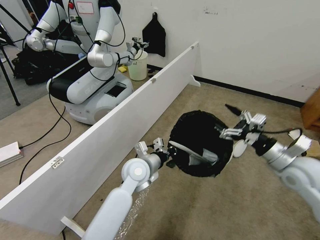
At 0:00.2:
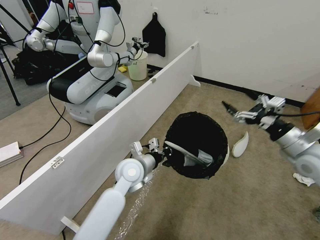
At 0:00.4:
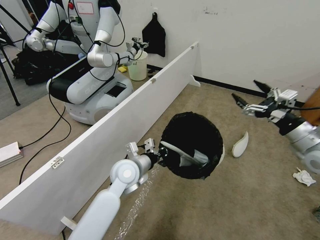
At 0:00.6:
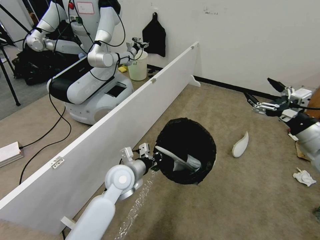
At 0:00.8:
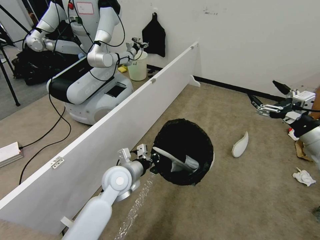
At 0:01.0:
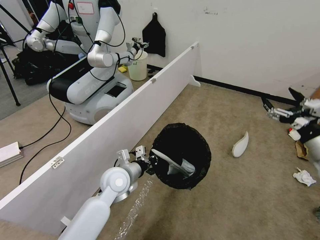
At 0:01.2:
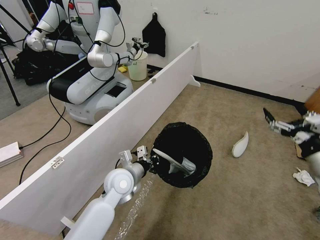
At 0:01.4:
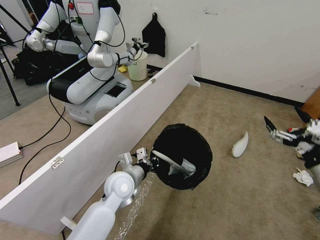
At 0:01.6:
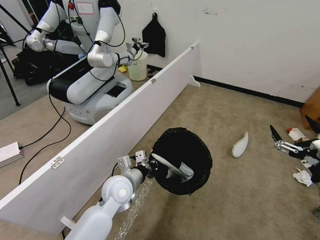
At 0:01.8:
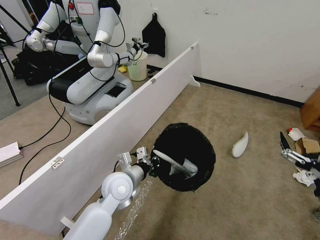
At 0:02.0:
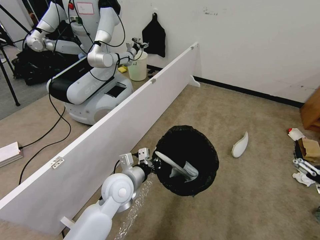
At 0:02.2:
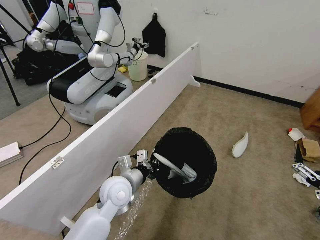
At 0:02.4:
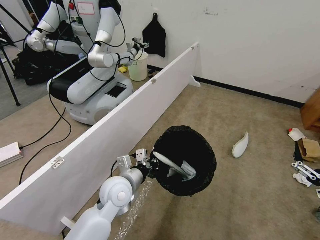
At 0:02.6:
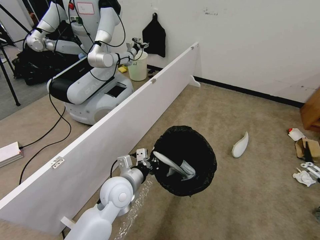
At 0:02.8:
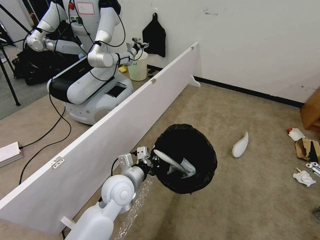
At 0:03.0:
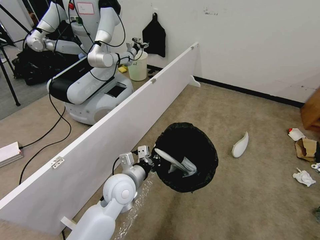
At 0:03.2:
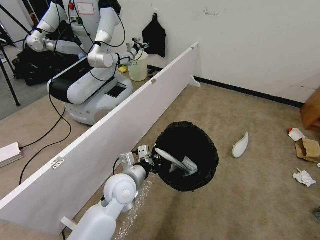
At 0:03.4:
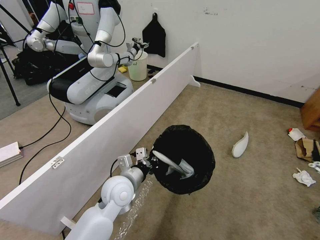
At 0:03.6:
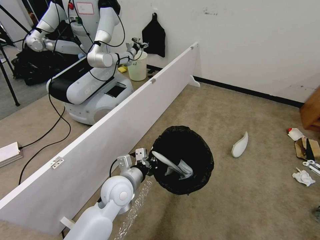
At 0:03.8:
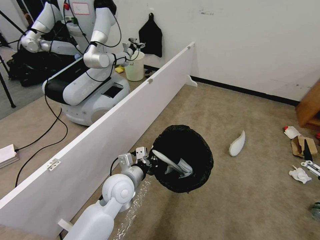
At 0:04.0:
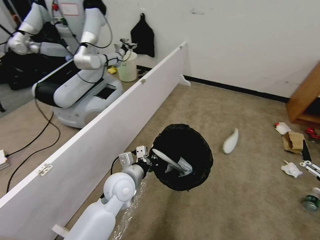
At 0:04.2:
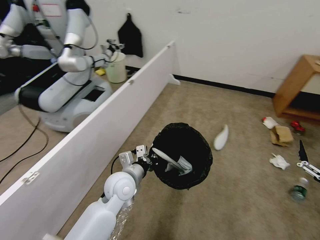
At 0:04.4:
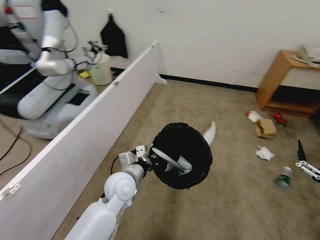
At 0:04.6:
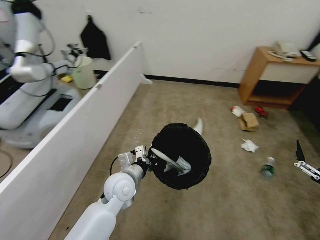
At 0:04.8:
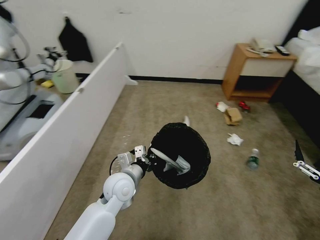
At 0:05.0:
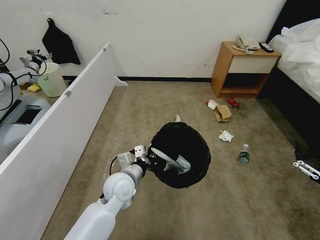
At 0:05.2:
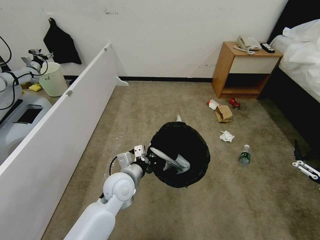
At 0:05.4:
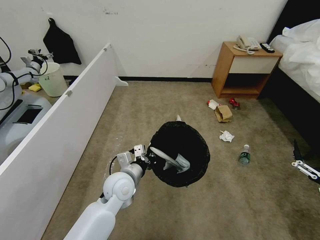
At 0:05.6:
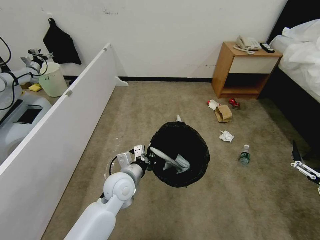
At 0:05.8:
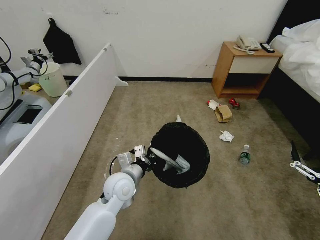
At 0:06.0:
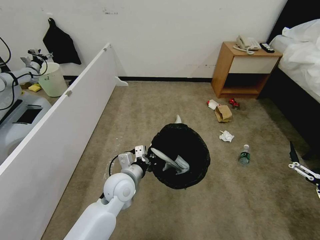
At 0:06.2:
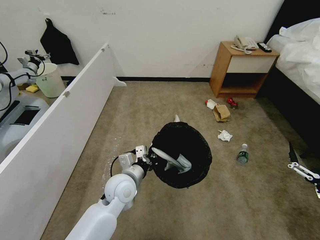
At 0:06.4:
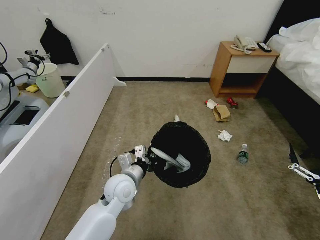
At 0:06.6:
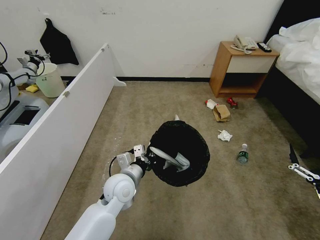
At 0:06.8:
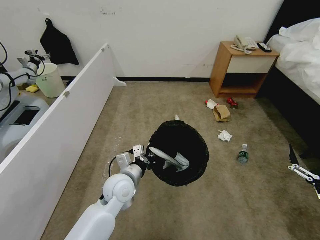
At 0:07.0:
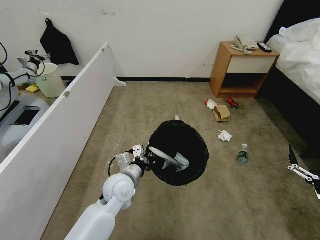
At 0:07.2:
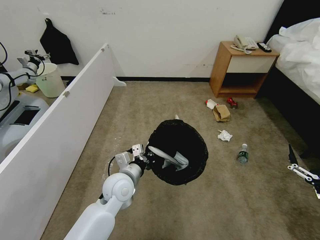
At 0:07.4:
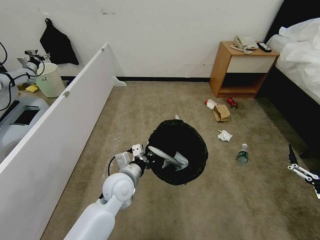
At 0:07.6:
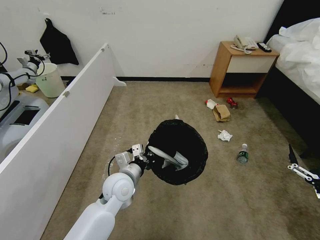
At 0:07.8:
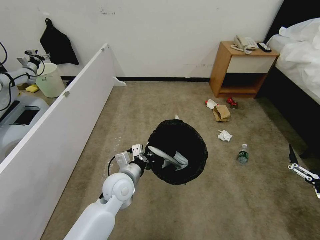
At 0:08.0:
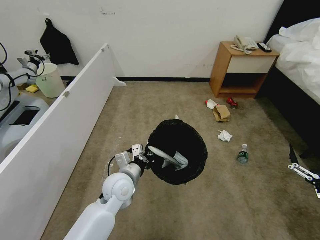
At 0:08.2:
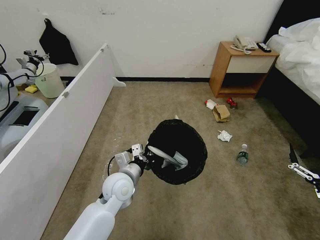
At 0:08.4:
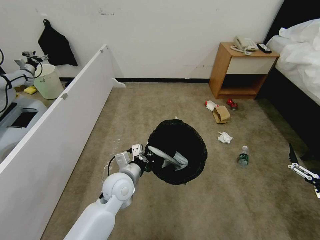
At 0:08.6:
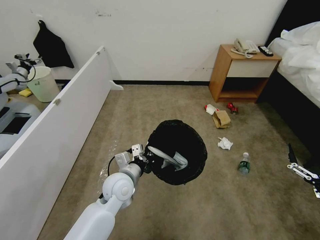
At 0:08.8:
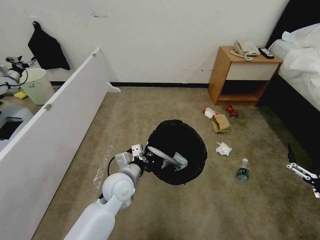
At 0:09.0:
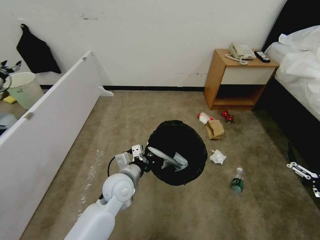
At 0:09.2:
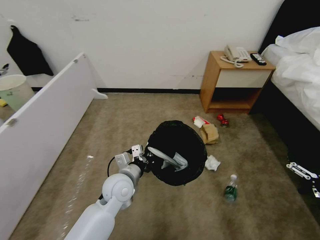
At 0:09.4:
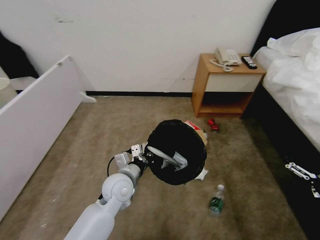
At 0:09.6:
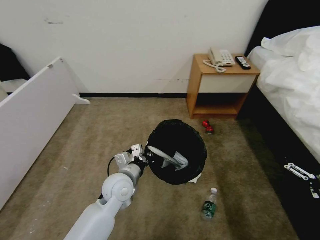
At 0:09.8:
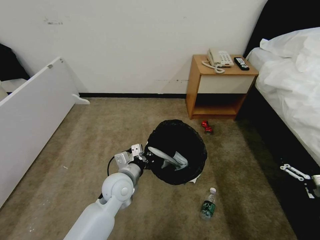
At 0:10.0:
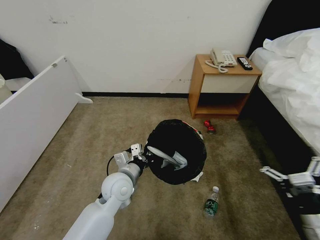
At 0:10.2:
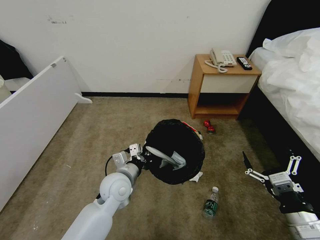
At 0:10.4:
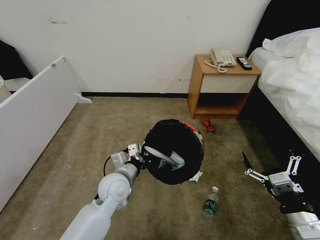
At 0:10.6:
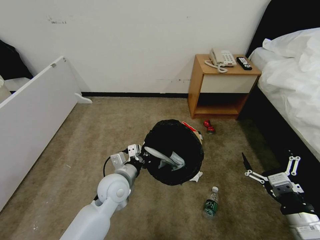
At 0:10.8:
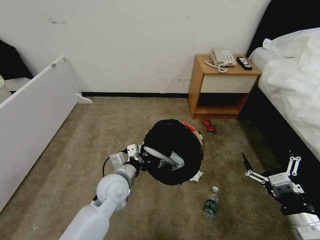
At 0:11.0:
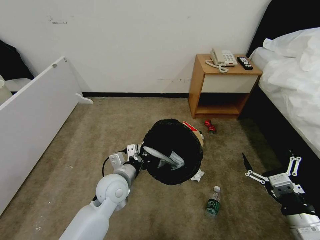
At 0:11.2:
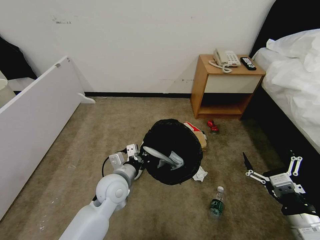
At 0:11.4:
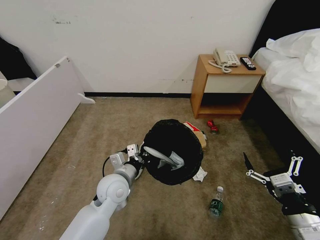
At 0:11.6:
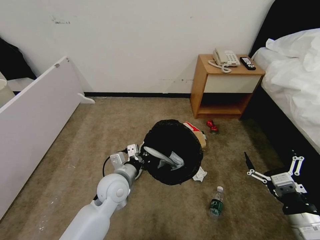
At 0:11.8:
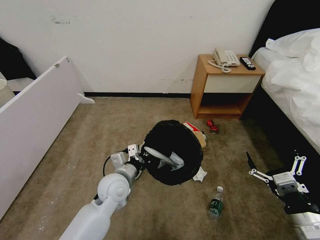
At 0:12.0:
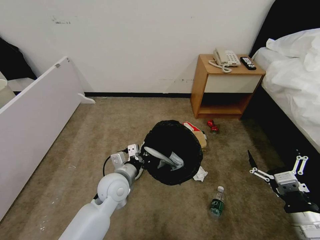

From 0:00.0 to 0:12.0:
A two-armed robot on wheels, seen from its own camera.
Task of the whole recording: Pick up the trash bin, then pick up the garbage from the floor and place it into the trash bin.
From 0:00.0 to 0:01.6: The left gripper shifts approximately 5 cm backward and to the left. Meanwhile the right gripper heads backward and to the right, covering some 15 cm.
From 0:01.6 to 0:03.0: The right gripper travels backward by about 10 cm.
From 0:06.0 to 0:07.6: Both grippers stay about where they are.
From 0:09.0 to 0:10.4: The right gripper moves approximately 5 cm.
From 0:10.4 to 0:12.0: The two grippers keep their place.

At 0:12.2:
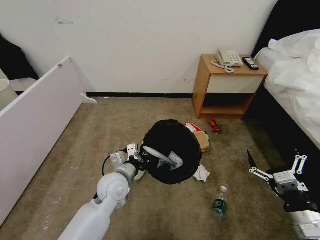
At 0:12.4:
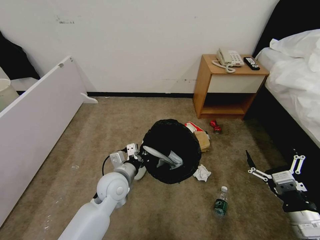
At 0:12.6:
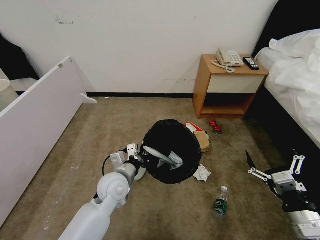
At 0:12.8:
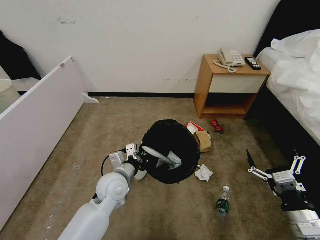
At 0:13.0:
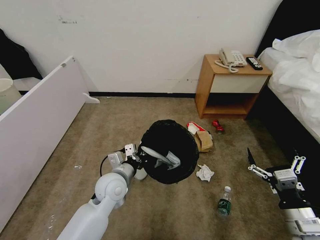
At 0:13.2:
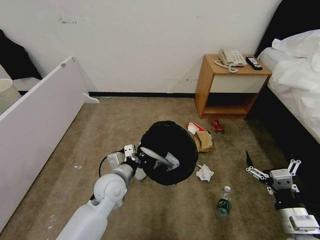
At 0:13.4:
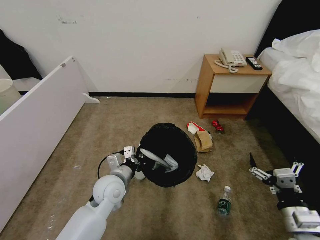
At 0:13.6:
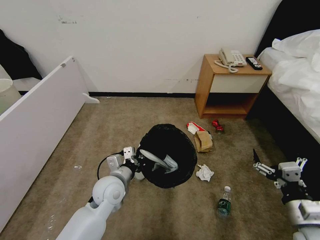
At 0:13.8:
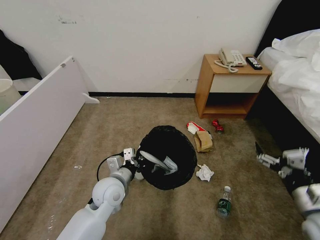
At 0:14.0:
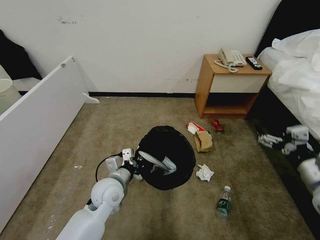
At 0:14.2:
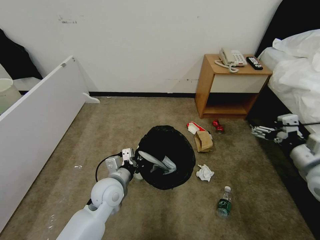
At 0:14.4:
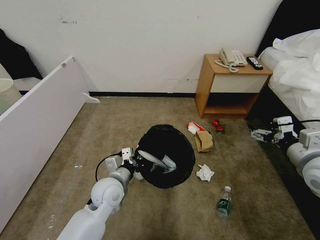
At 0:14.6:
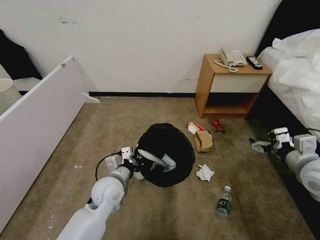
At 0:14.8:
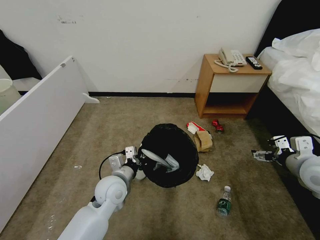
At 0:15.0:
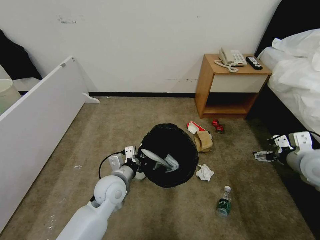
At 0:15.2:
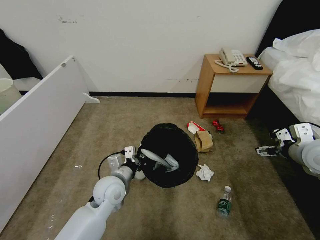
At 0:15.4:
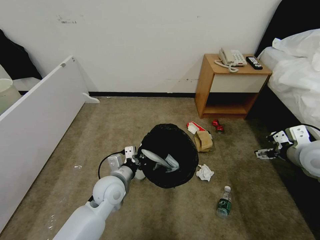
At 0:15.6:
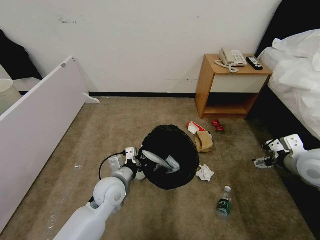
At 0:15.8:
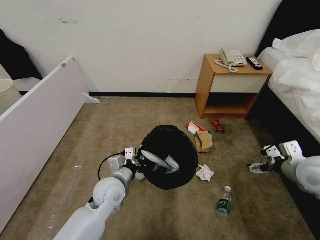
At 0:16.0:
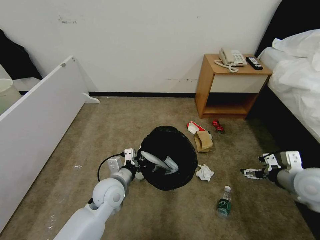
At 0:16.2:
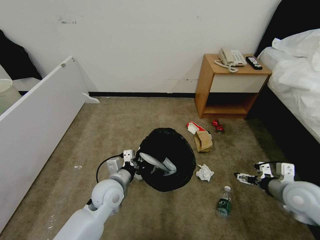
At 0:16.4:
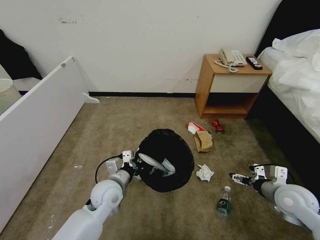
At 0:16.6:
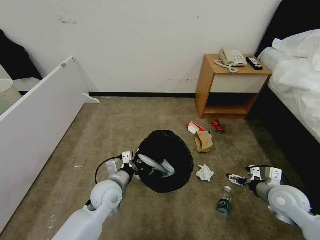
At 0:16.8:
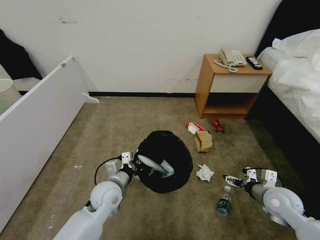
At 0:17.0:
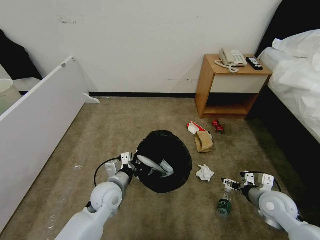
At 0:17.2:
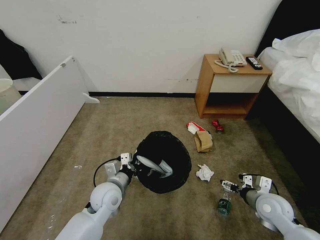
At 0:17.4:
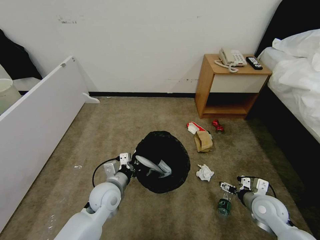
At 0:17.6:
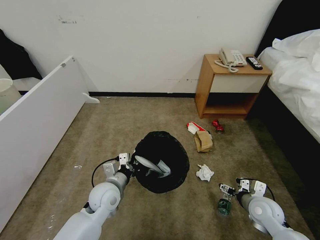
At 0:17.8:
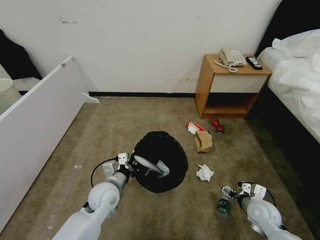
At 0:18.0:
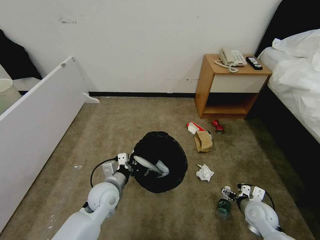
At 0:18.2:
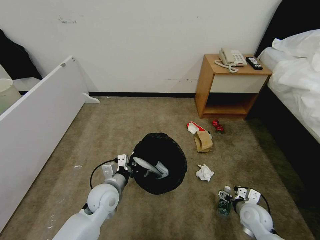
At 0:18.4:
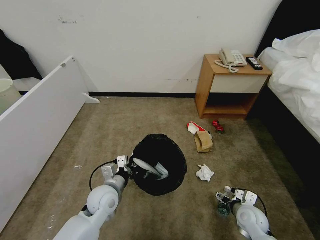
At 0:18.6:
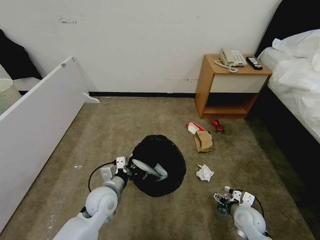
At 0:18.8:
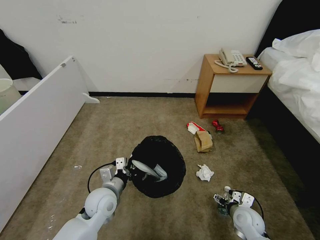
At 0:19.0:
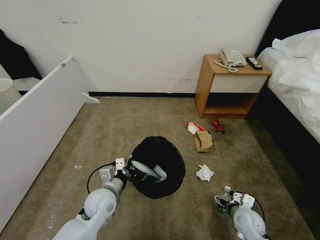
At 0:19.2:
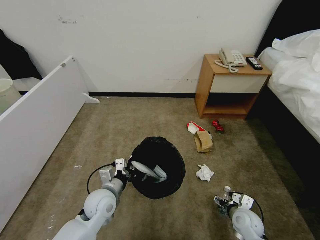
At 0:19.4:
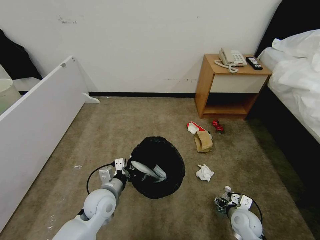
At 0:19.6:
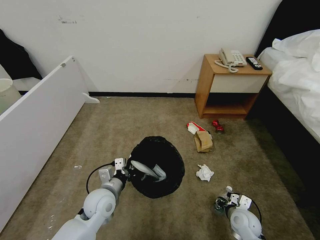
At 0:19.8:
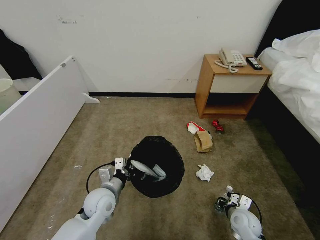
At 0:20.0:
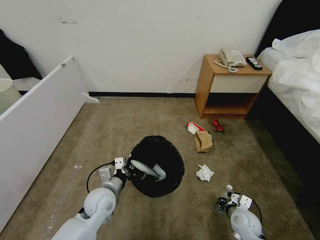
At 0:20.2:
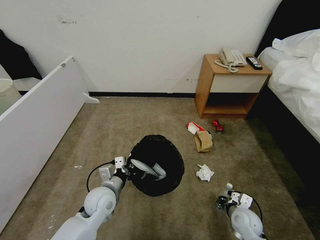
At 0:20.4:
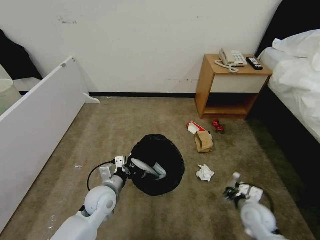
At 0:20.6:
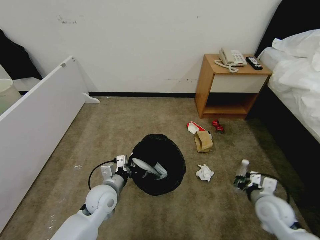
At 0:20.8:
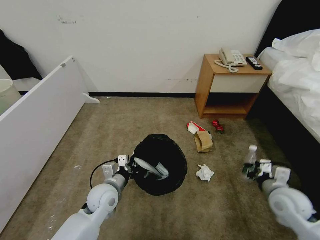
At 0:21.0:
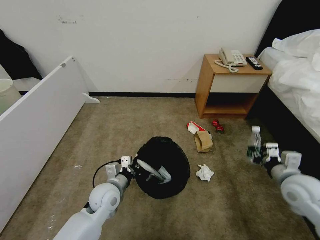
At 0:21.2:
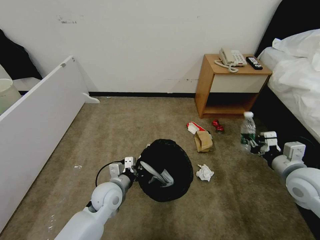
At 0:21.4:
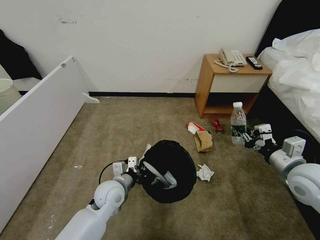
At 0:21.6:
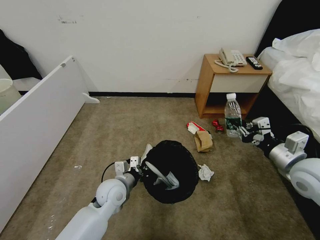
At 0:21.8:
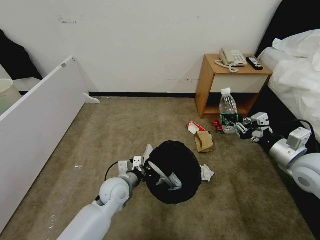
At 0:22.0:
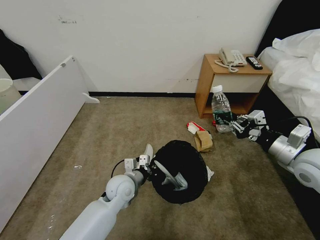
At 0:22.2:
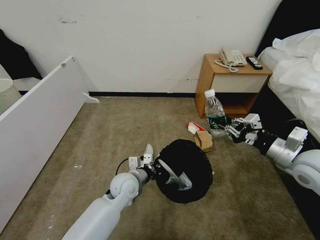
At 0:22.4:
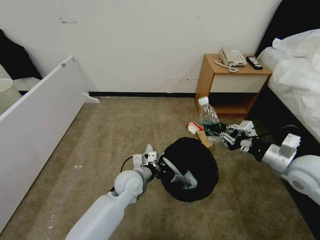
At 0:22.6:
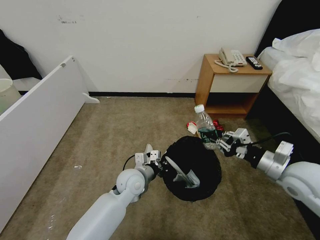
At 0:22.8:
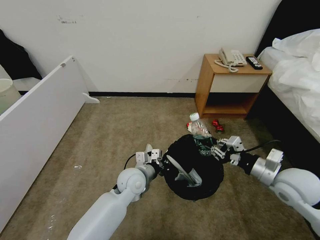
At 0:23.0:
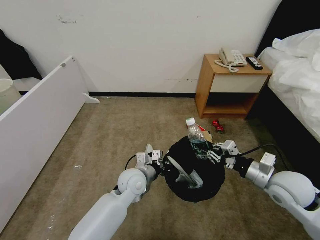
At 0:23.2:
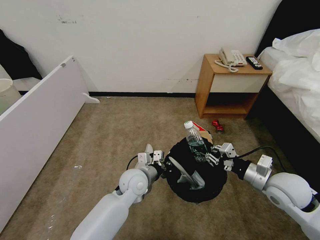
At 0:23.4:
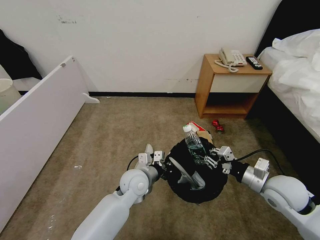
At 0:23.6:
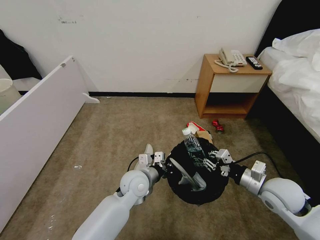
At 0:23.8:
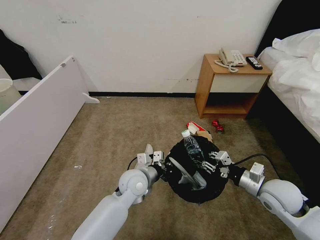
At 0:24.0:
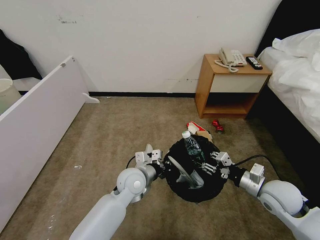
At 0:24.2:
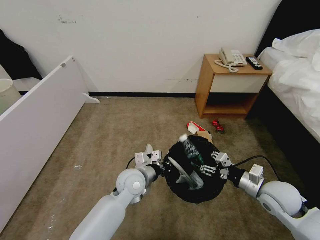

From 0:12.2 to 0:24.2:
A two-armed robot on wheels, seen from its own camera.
Task of the whole recording: Pick up the trash bin, then pick up the garbage from the floor and place it into the trash bin.
From 0:12.2 to 0:13.8: The right gripper shifts by roughly 5 cm.
From 0:13.8 to 0:15.2: The right gripper heads forward and upward, covering approximately 20 cm.
From 0:15.2 to 0:16.6: The right gripper goes about 15 cm downward.
From 0:16.6 to 0:18.2: The right gripper shifts some 10 cm downward.
From 0:18.2 to 0:19.8: The right gripper closes.
From 0:19.8 to 0:21.2: The right gripper moves upward, some 25 cm.
From 0:21.2 to 0:22.6: The left gripper heads to the right, covering approximately 5 cm.
From 0:22.6 to 0:24.2: The right gripper goes approximately 10 cm downward, and opens its fingers.
